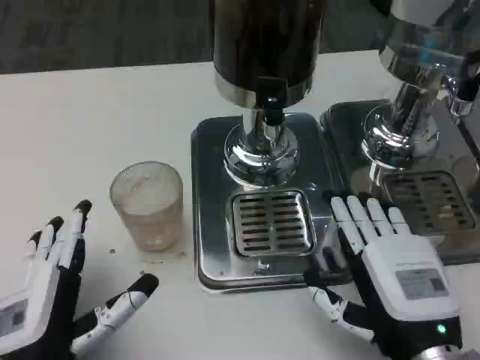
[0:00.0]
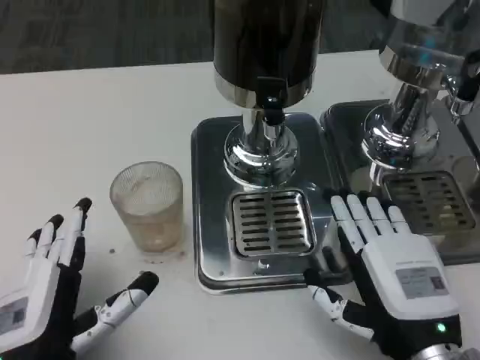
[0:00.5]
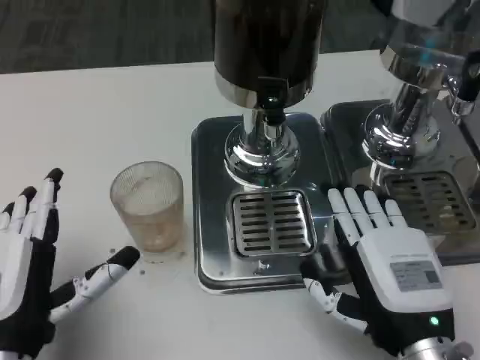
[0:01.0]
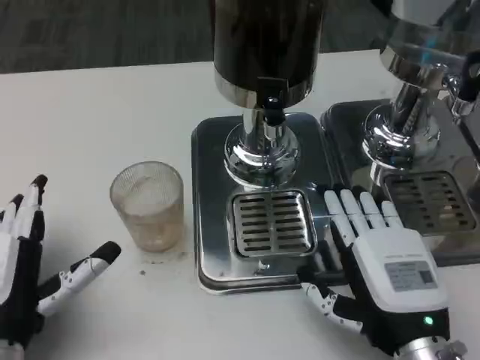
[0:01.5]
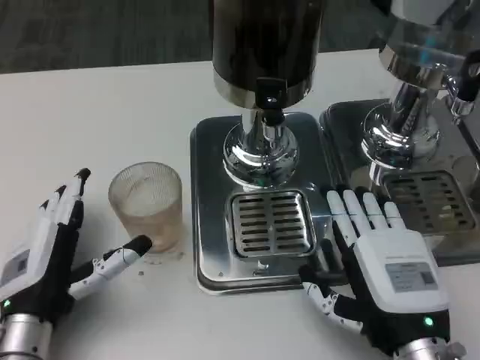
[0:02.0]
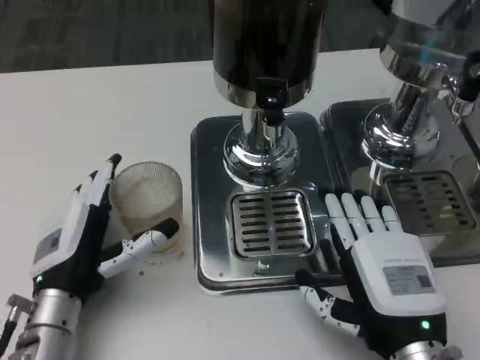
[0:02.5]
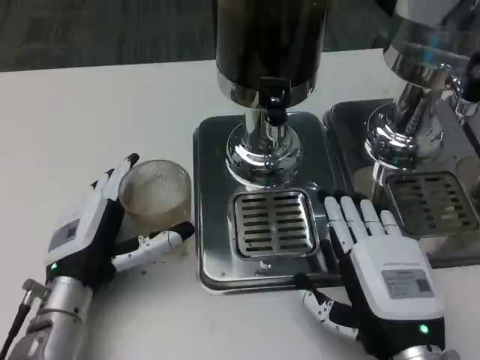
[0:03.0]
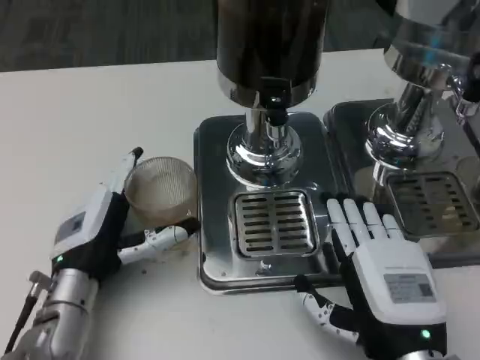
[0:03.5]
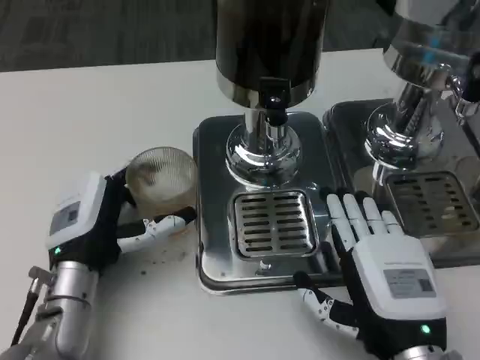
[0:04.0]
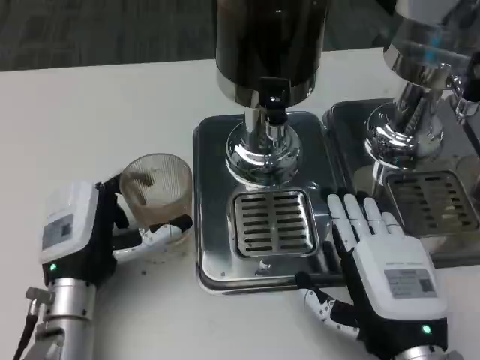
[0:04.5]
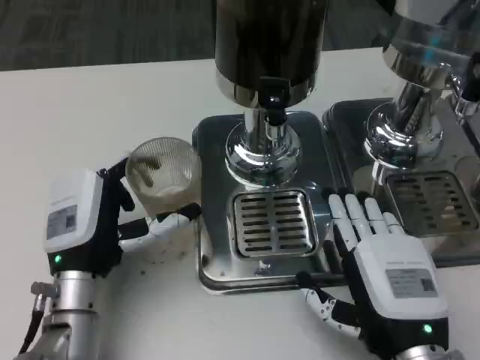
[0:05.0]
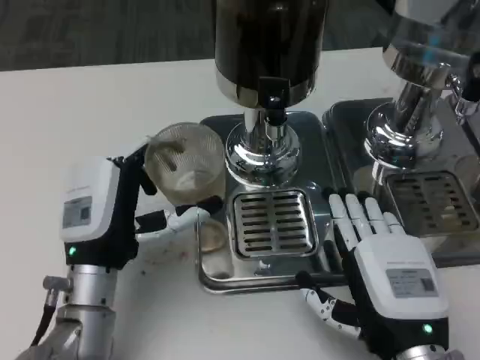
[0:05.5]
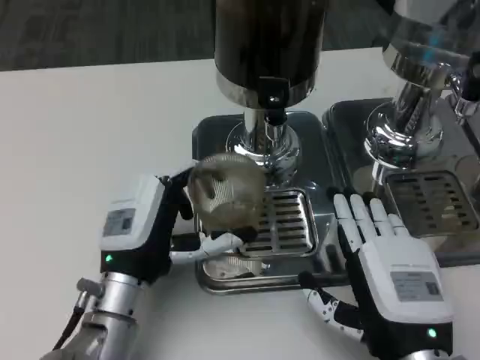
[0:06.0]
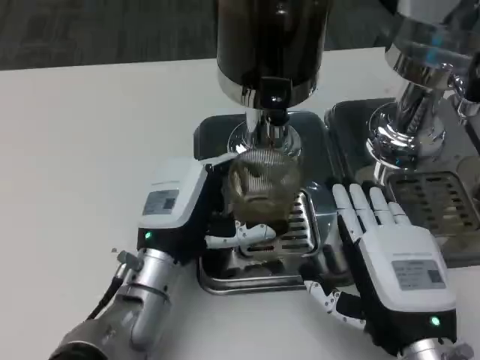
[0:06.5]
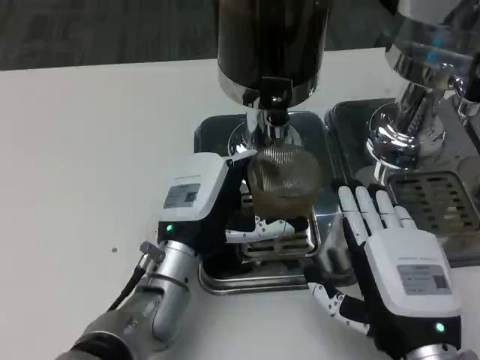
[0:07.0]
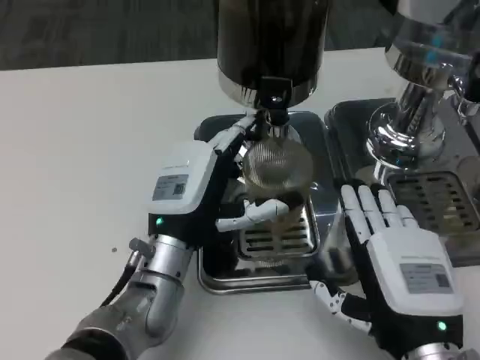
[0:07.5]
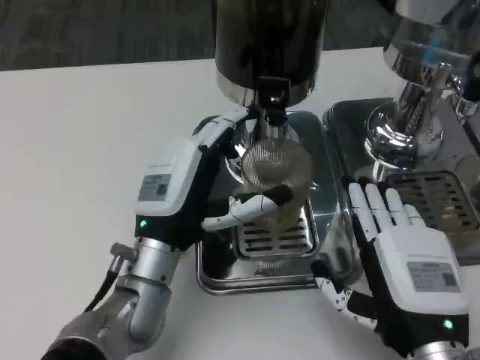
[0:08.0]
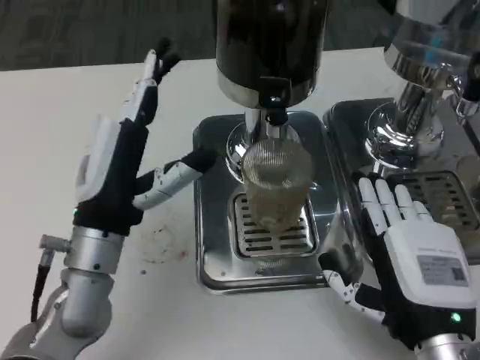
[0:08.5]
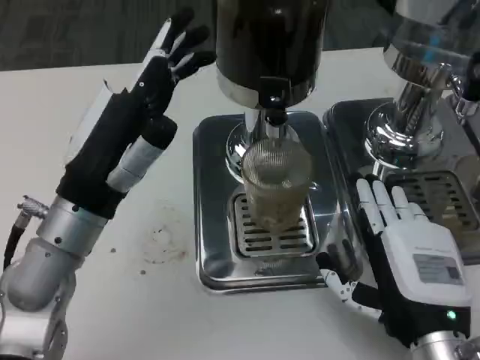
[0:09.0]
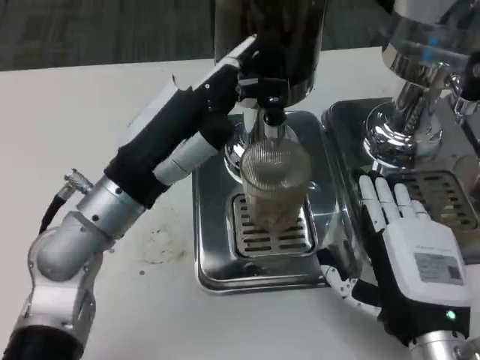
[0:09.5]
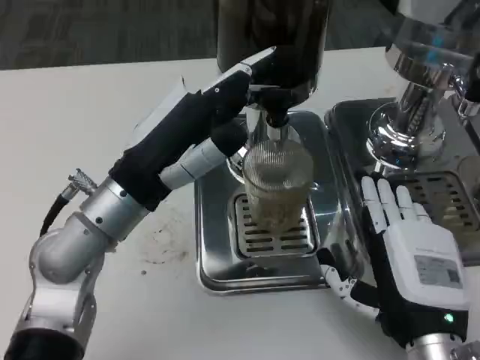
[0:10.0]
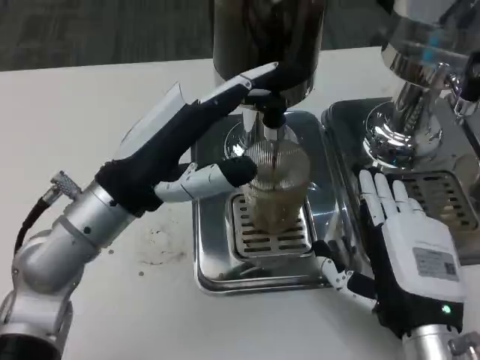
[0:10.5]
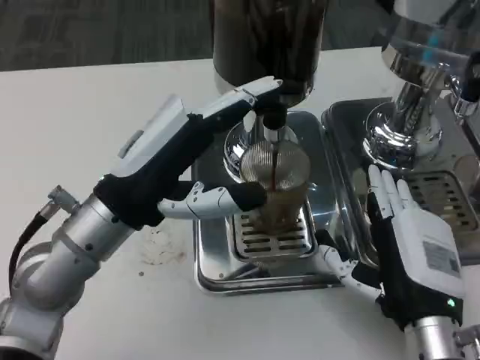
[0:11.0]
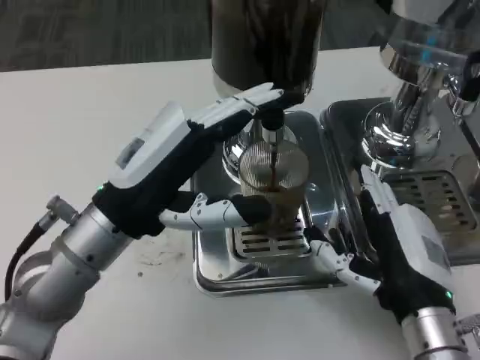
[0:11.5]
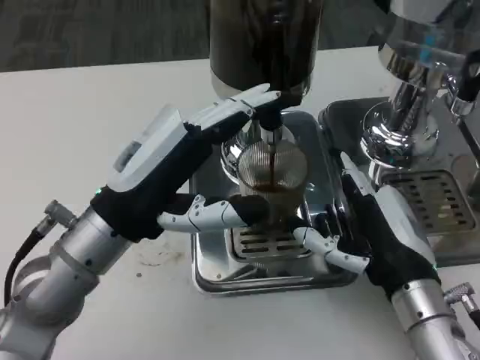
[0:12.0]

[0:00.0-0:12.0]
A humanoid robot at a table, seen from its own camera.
Task of the whole recording: Grasp the cup under the faucet to collect the drink, then remove the cup.
0:00.0 to 0:02.0: The left hand heads forward, covering approximately 5 cm.
0:02.0 to 0:04.0: The left hand is displaced forward by approximately 5 cm.
0:08.0 to 0:10.0: The left hand goes approximately 10 cm upward.
0:10.0 to 0:12.0: The right hand moves forward, some 5 cm.

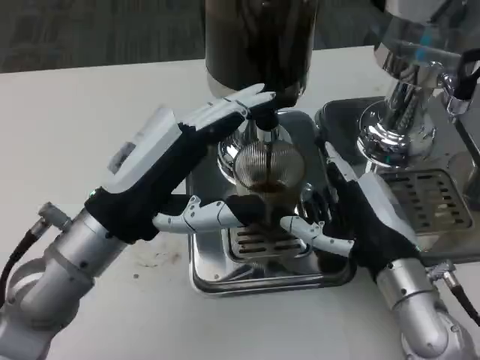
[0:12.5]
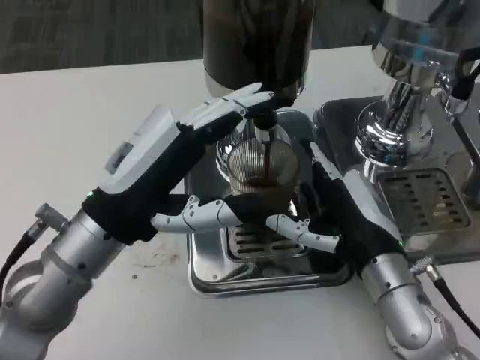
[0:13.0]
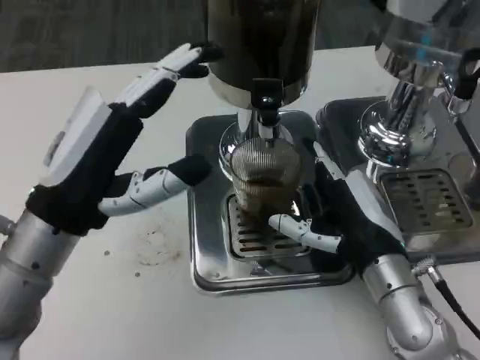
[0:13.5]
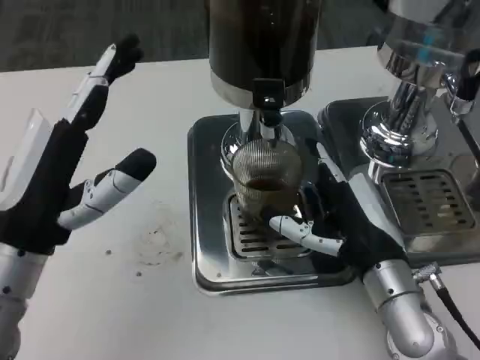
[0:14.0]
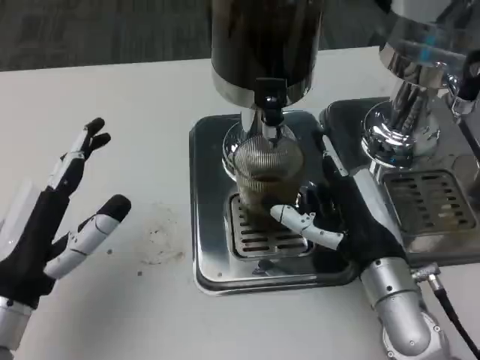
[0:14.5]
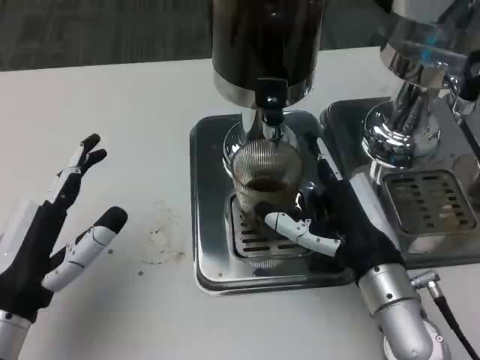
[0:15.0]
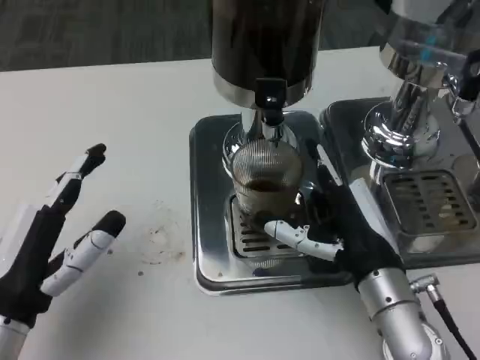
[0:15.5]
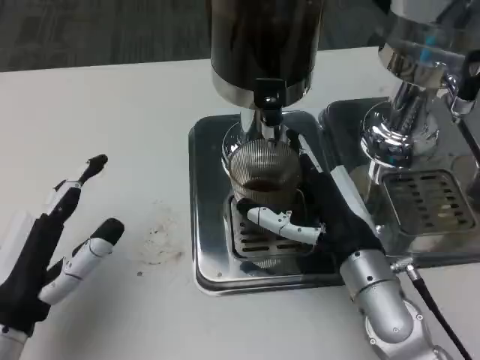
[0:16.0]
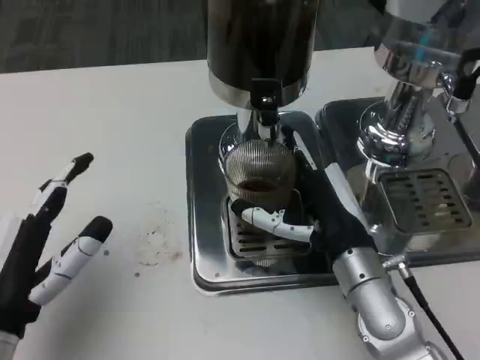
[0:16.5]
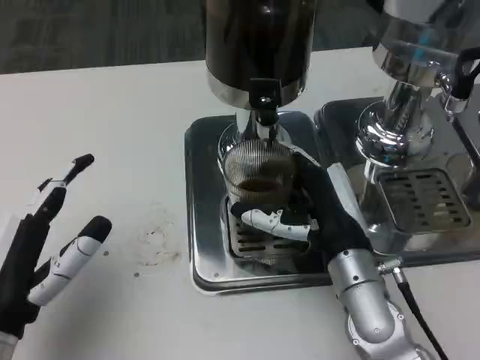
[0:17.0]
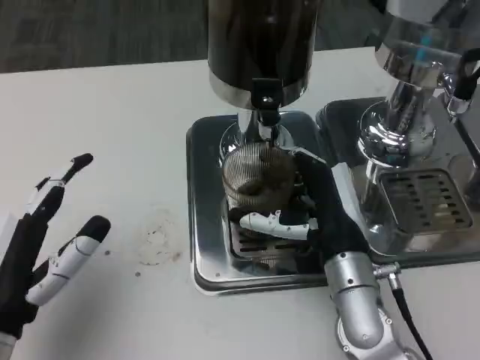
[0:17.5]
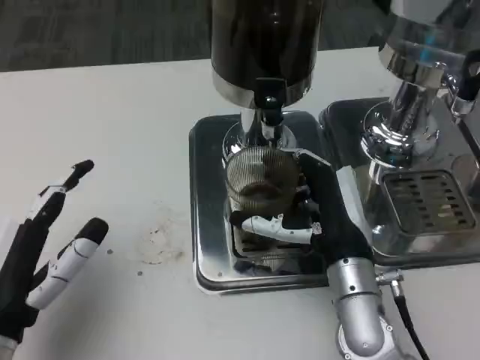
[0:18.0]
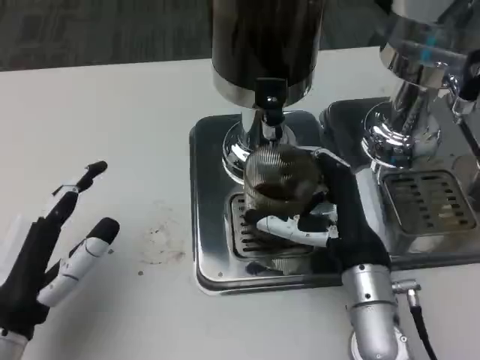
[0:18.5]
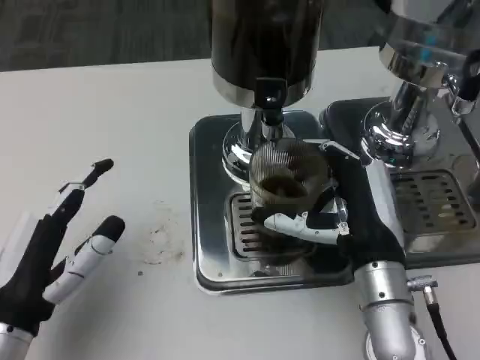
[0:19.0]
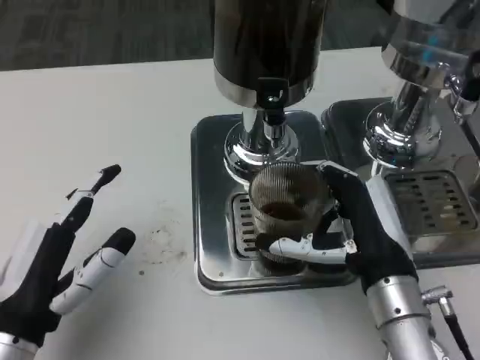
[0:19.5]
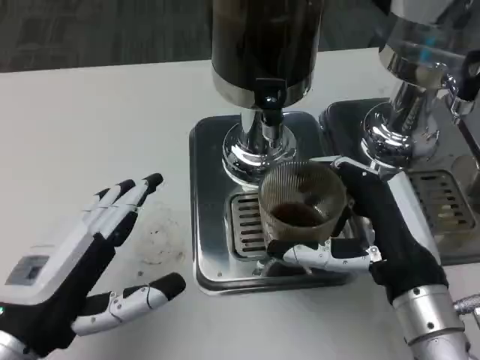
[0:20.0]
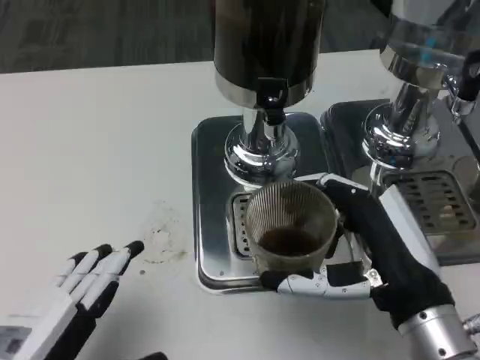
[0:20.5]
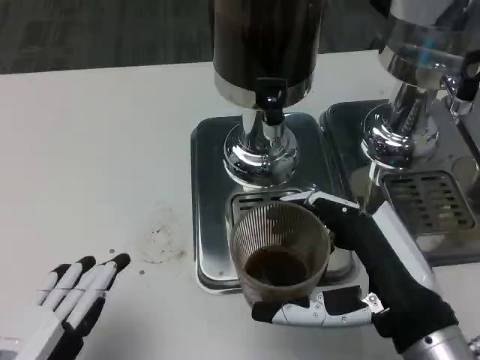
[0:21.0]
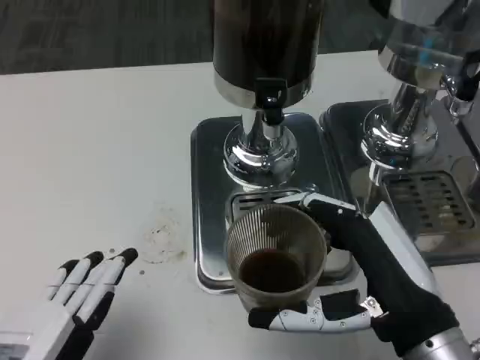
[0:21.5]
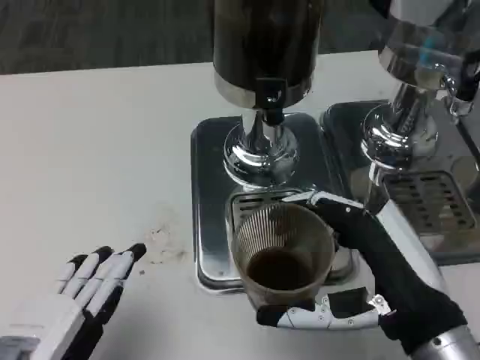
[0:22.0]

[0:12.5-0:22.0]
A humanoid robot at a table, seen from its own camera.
Task of the whole recording: Grasp the cup under the faucet to collect the drink, then remove the cup.
0:12.5 to 0:14.5: The left hand is displaced to the left, backward and downward by roughly 10 cm.
0:16.5 to 0:18.0: The hands make only small movements.
0:18.0 to 0:20.0: The right hand heads backward and to the right, covering approximately 10 cm.
0:20.0 to 0:22.0: The left hand is displaced backward by about 5 cm. Meanwhile the right hand changes place by about 5 cm.

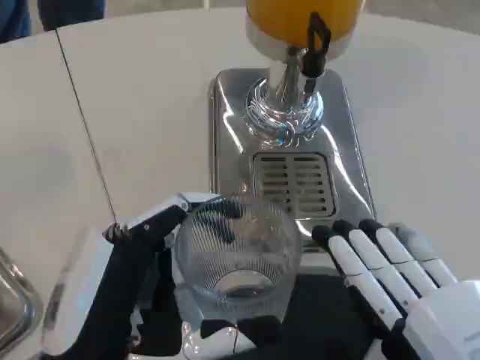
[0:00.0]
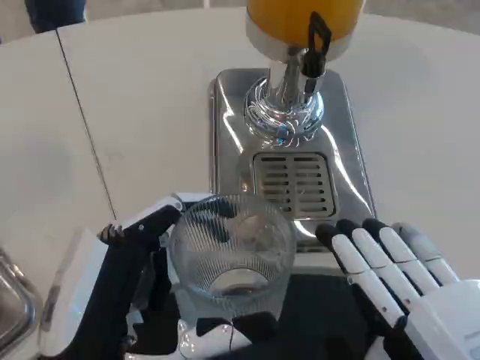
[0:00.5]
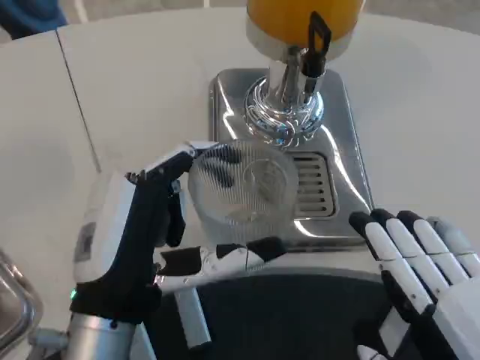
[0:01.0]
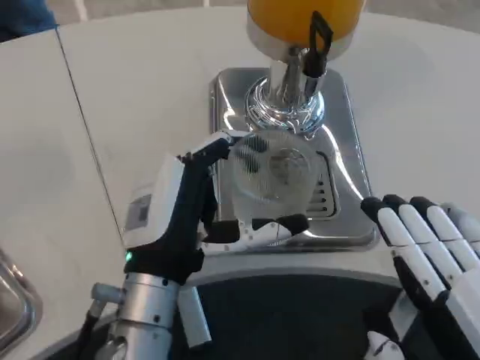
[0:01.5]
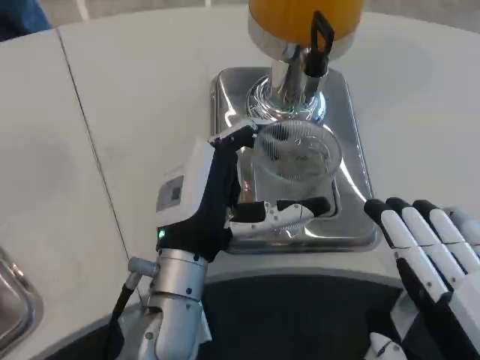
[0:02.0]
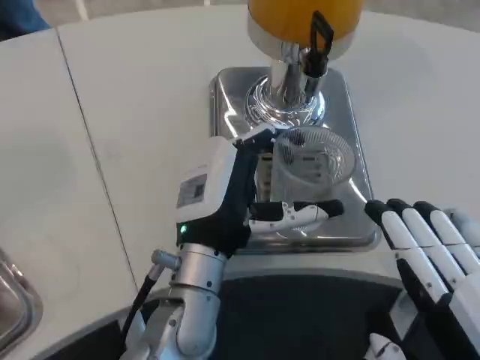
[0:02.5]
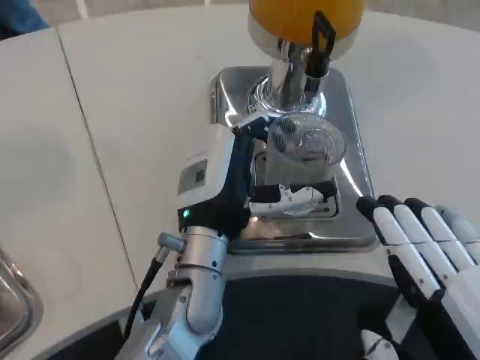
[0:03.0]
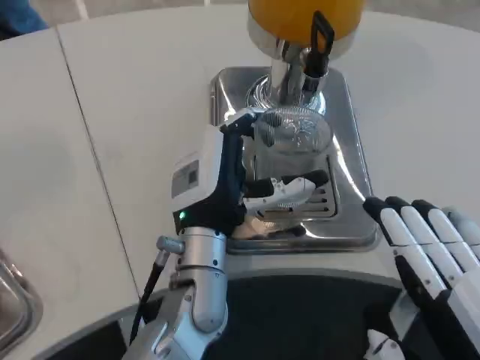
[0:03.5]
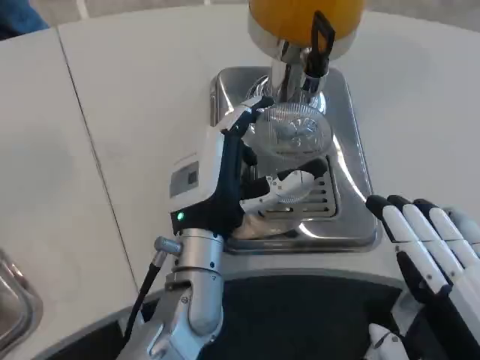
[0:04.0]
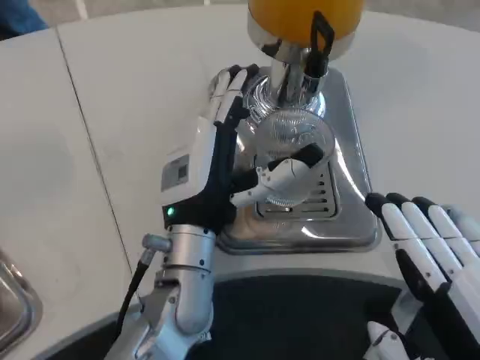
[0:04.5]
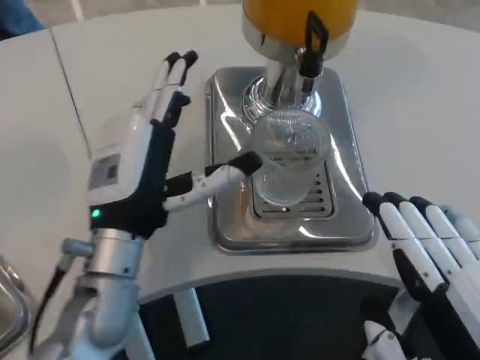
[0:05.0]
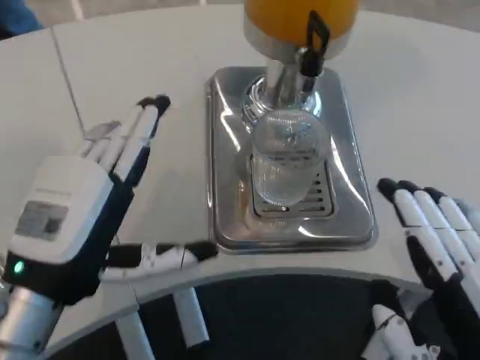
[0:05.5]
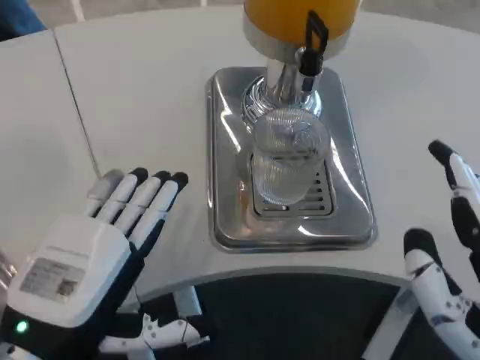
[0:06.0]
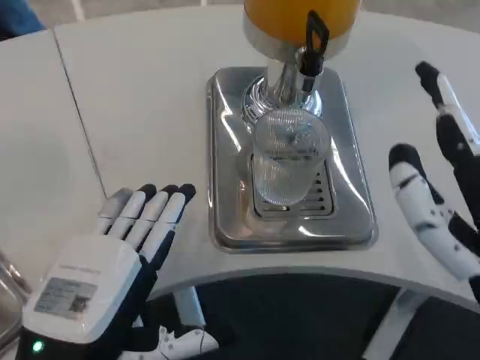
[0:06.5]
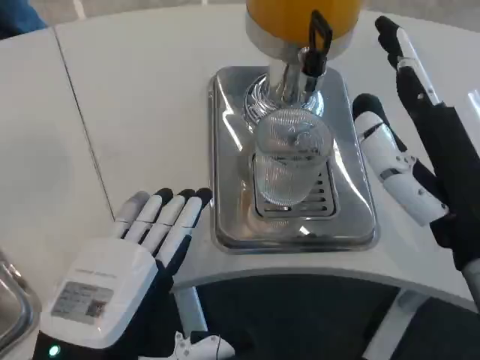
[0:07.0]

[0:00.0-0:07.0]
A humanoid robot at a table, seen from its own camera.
Task of the whole recording: Grasp the cup under the faucet to collect the drink, then remove the cup.
0:00.0 to 0:02.0: The left hand shifts about 15 cm forward and to the right.
0:02.0 to 0:03.5: There are only small adjustments of the hands.
0:03.5 to 0:05.0: The left hand is displaced to the left by approximately 10 cm.
0:05.0 to 0:07.0: The right hand is displaced forward by approximately 10 cm. The left hand travels backward by some 15 cm.
